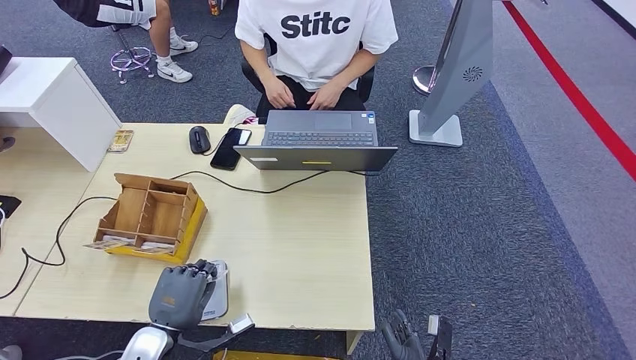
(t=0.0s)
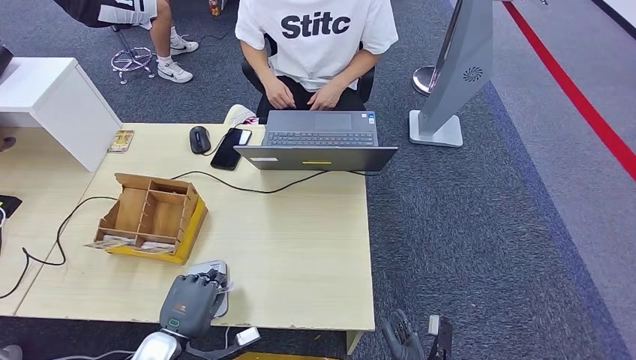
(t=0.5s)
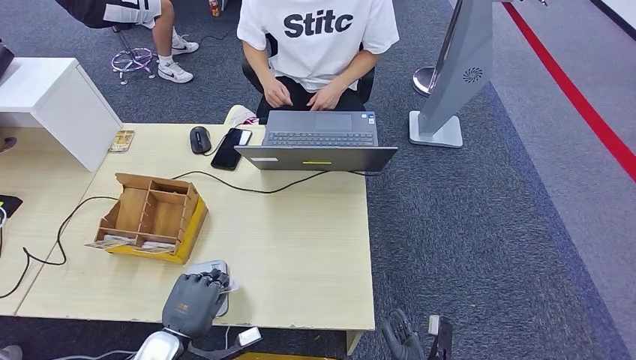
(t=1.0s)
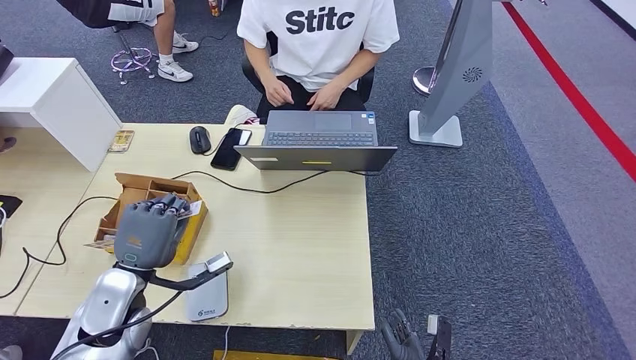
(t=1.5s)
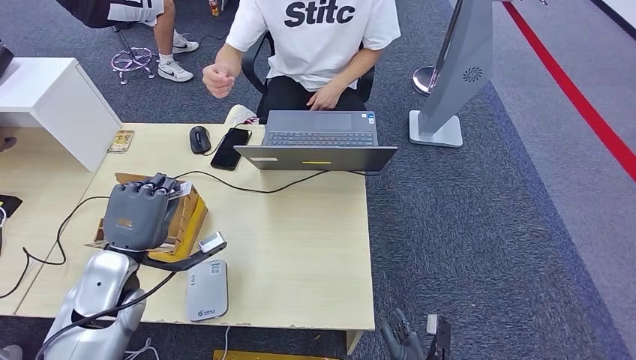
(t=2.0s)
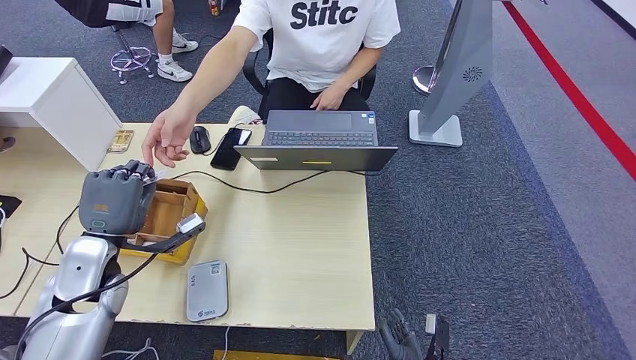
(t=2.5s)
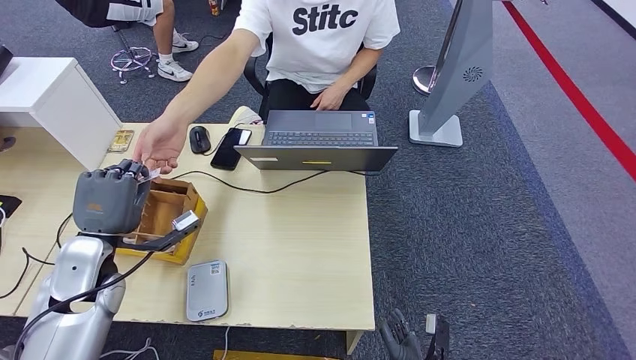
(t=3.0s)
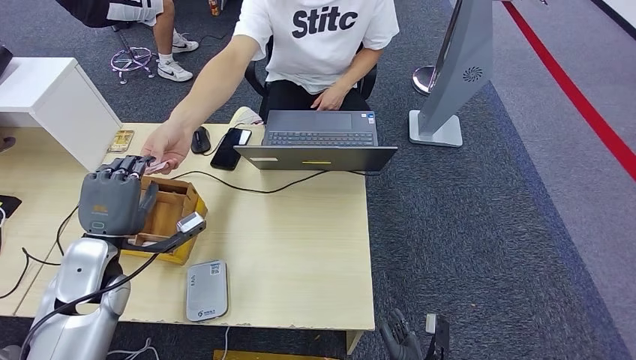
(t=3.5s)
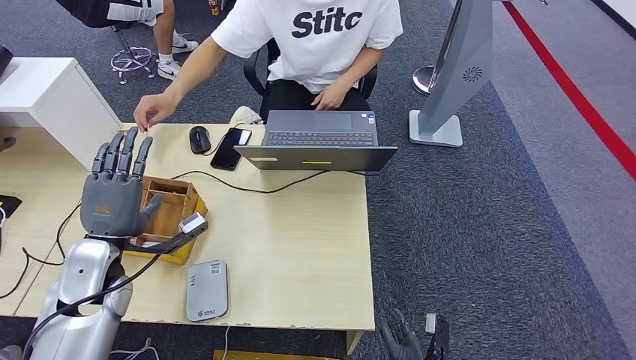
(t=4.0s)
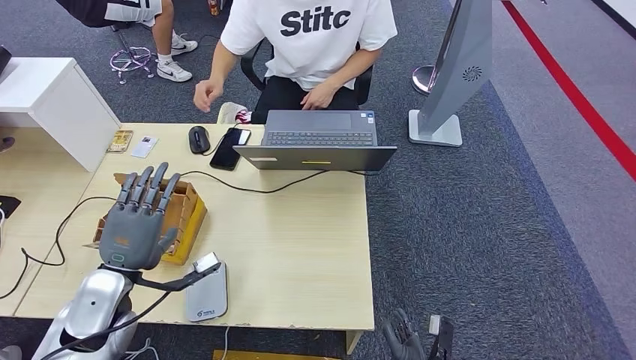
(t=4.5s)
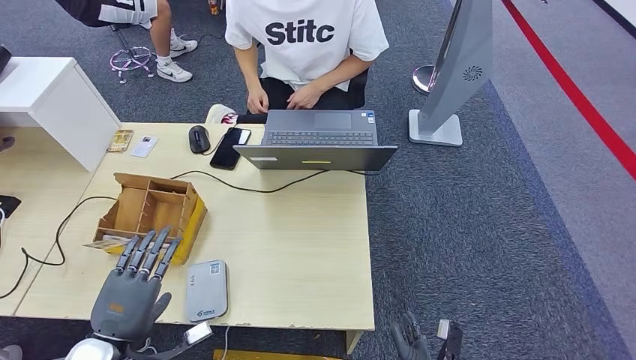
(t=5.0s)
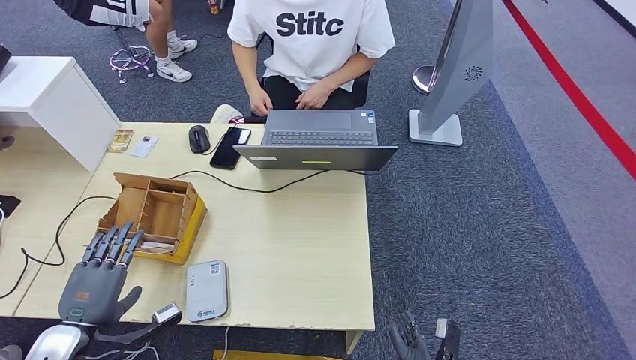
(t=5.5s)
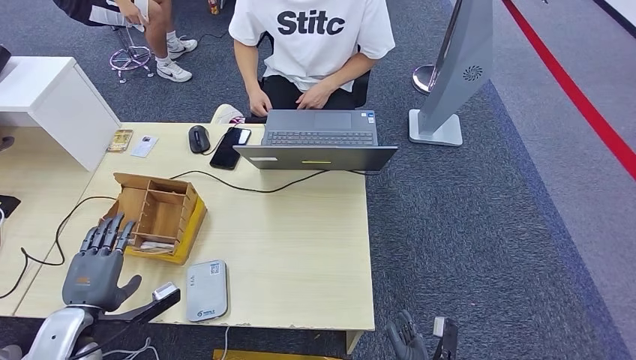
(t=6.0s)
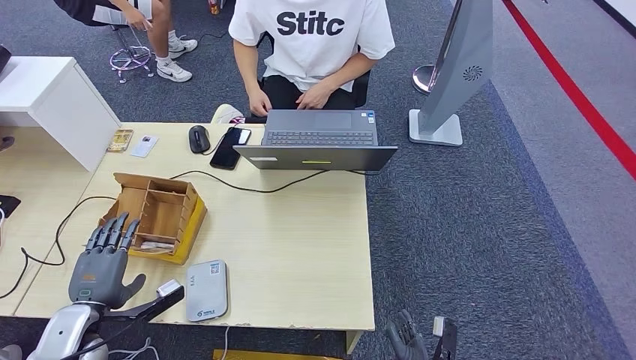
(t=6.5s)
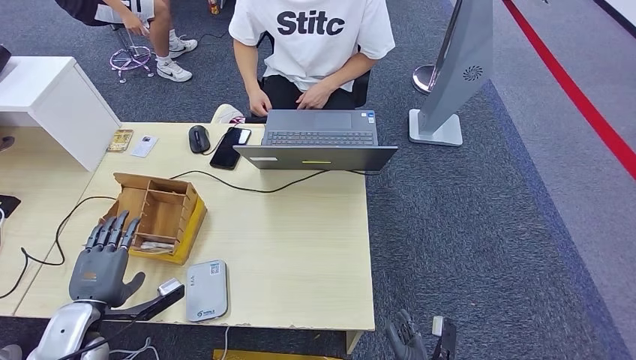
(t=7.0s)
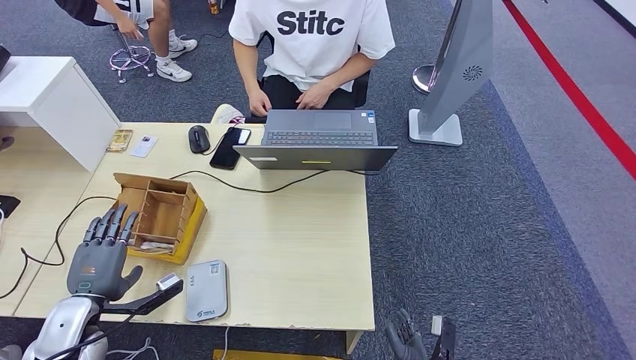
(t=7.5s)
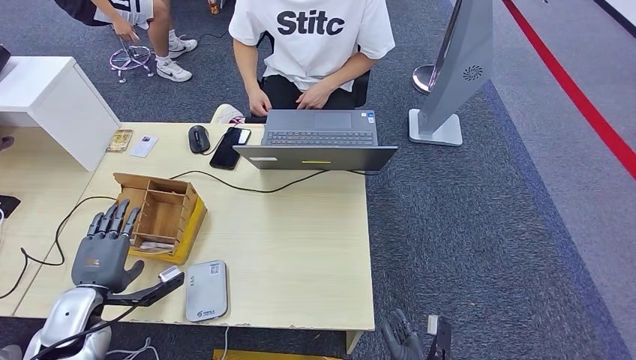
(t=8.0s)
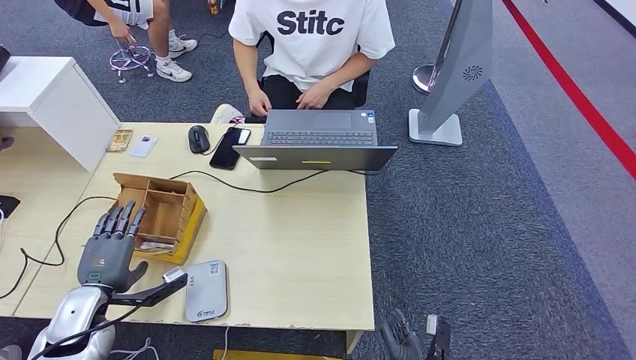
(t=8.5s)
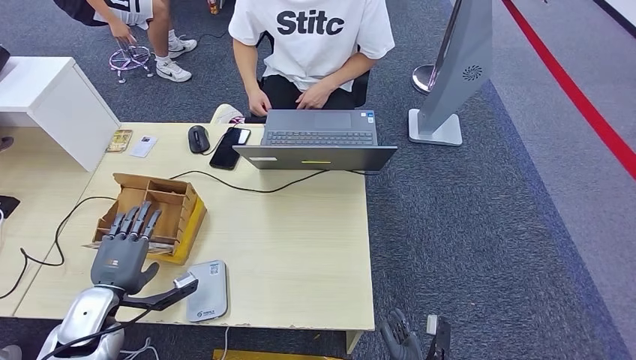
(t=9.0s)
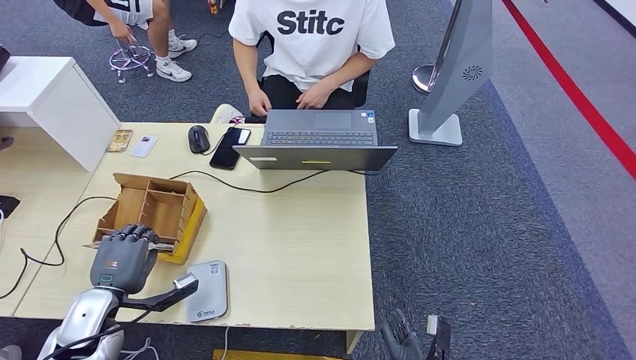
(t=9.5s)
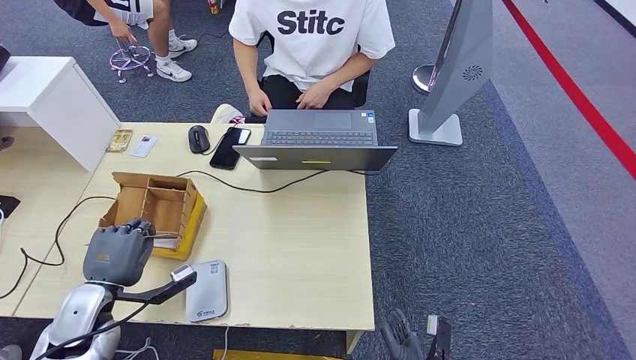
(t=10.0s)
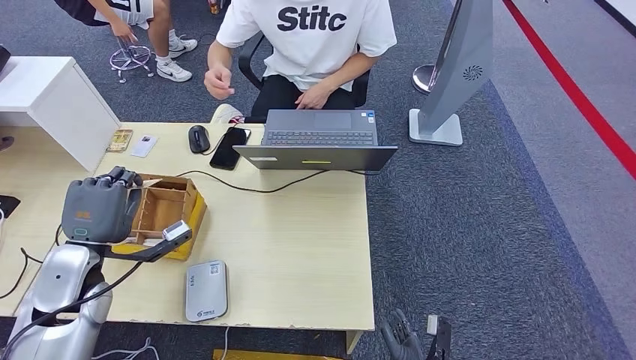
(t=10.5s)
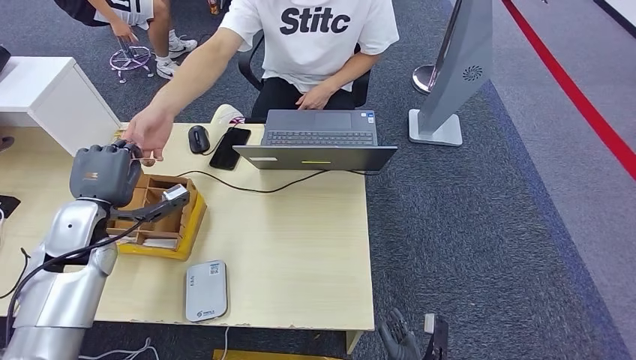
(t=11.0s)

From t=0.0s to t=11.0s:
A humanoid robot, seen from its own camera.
Step, from t=1.5s to t=3.5s: Hand the ID card to the person.
Step, from t=8.0s to t=10.5s: Pick up the room key from the key card box.
From t=0.0s to t=2.0s: The left hand goes about 15 cm upward and forward.
From t=2.0s to t=3.5s: The hands move only a little.
From t=3.5s to t=5.5s: The left hand travels backward and downward by about 15 cm.
From t=5.5s to t=7.5s: There are only small adjustments of the hands.
From t=7.5s to t=9.0s: The hands make only small movements.
From t=9.0s to t=11.0s: The left hand is displaced upward and forward by some 15 cm.

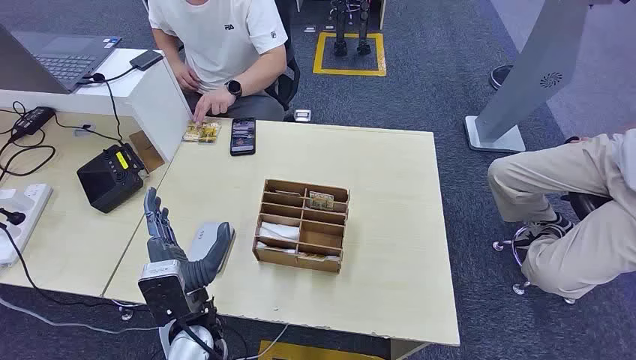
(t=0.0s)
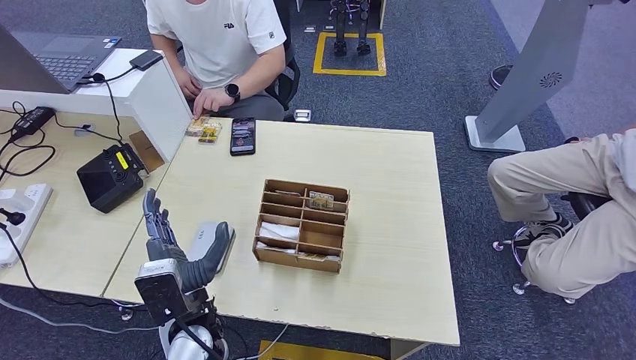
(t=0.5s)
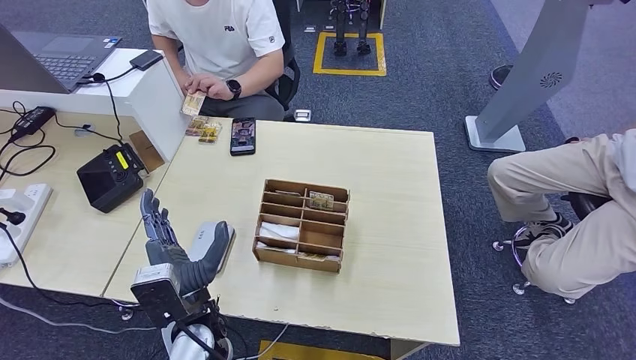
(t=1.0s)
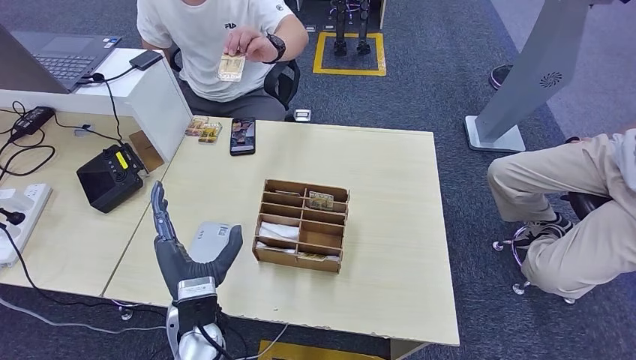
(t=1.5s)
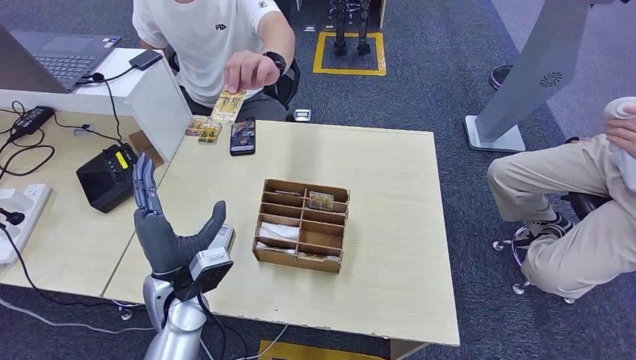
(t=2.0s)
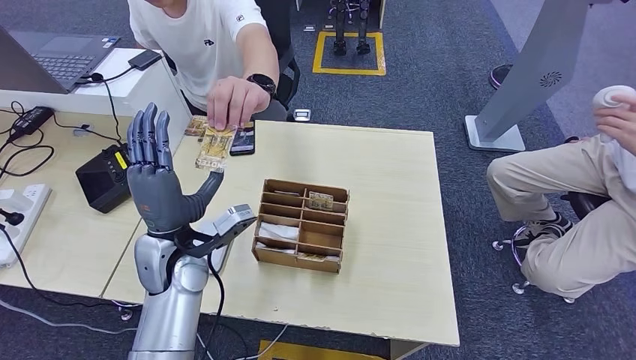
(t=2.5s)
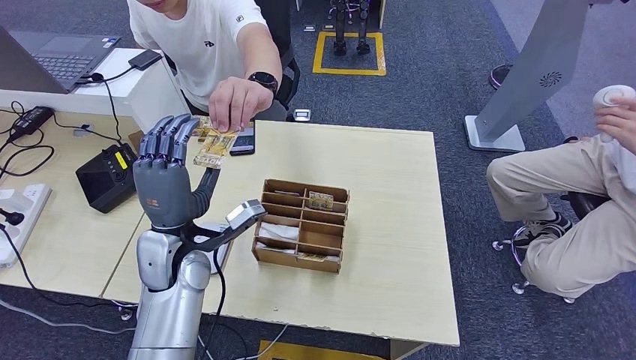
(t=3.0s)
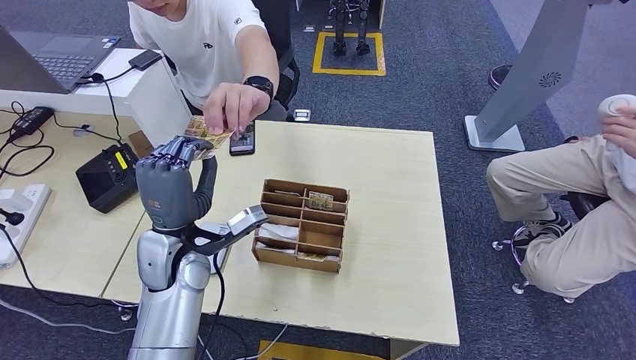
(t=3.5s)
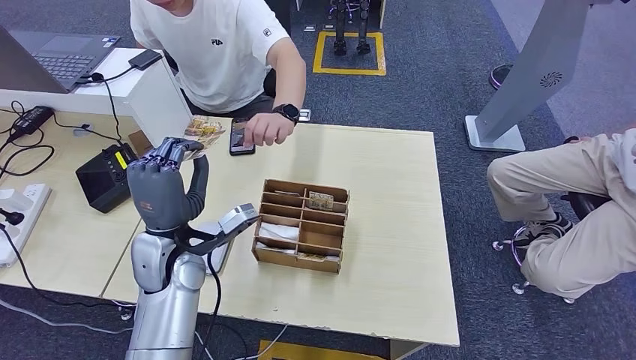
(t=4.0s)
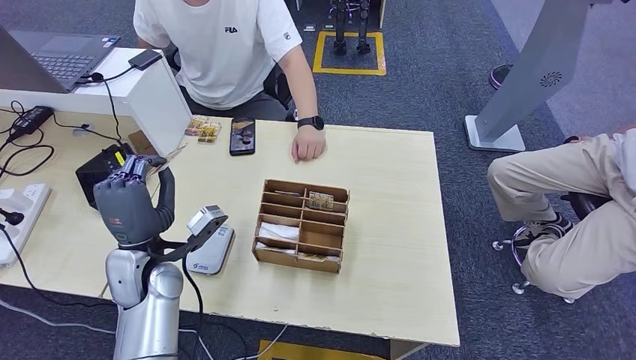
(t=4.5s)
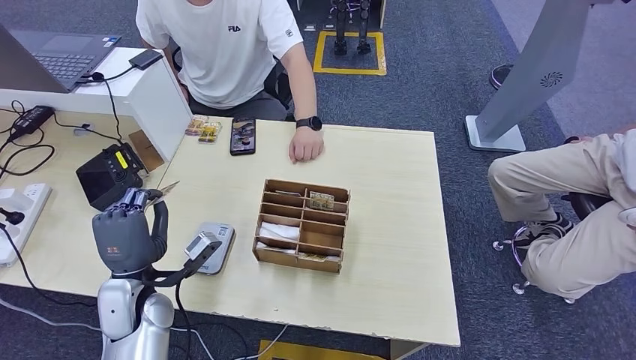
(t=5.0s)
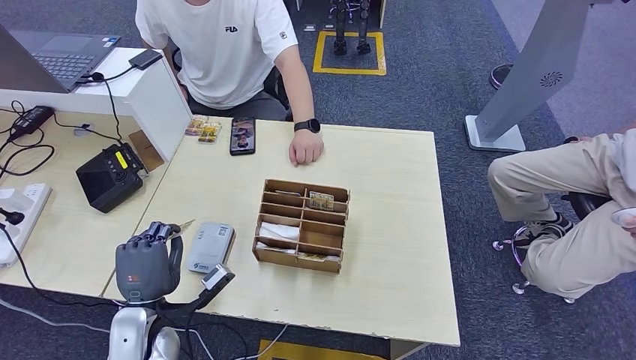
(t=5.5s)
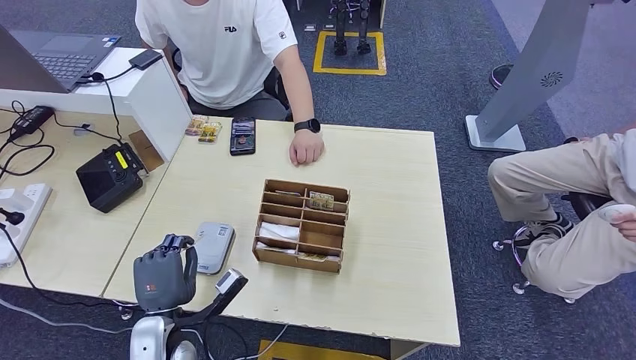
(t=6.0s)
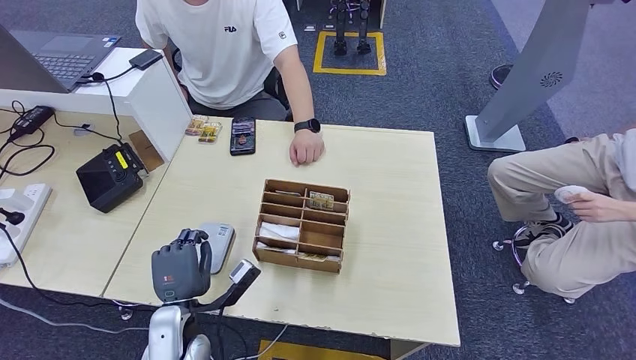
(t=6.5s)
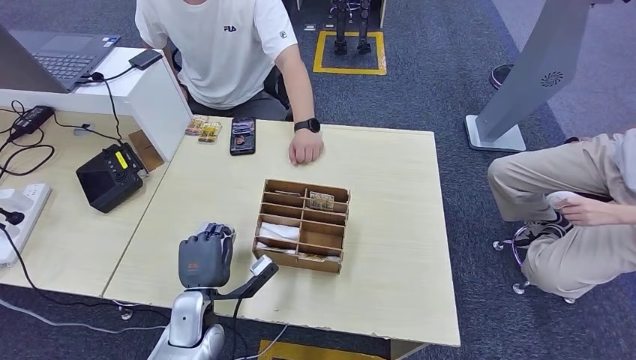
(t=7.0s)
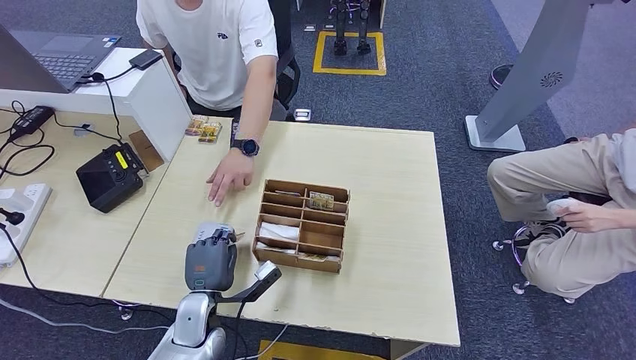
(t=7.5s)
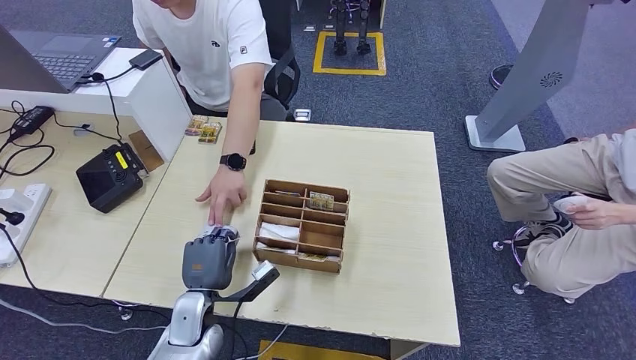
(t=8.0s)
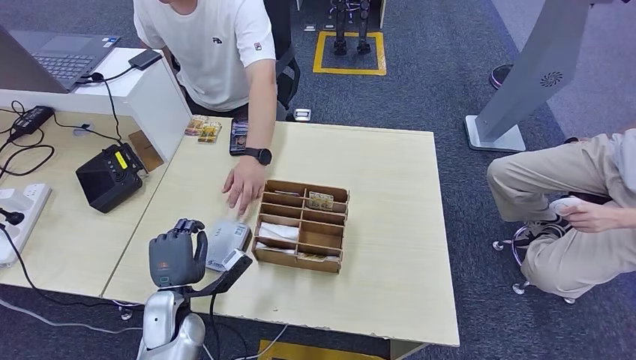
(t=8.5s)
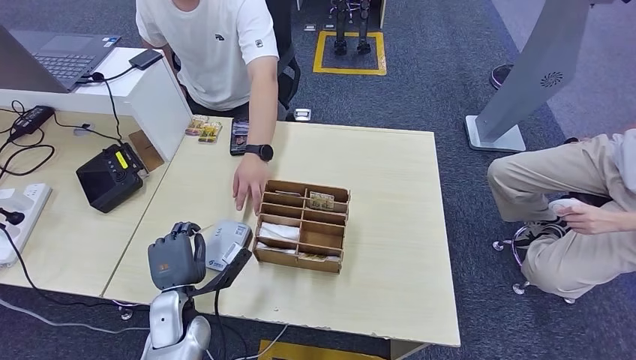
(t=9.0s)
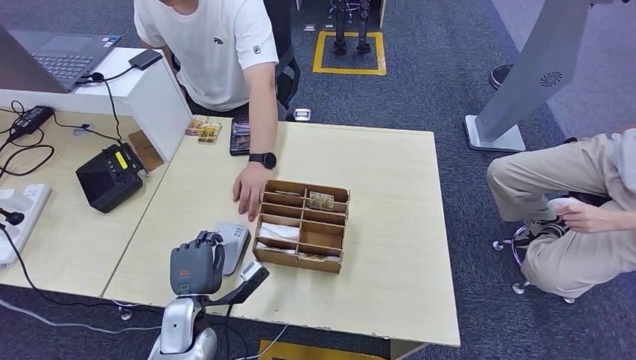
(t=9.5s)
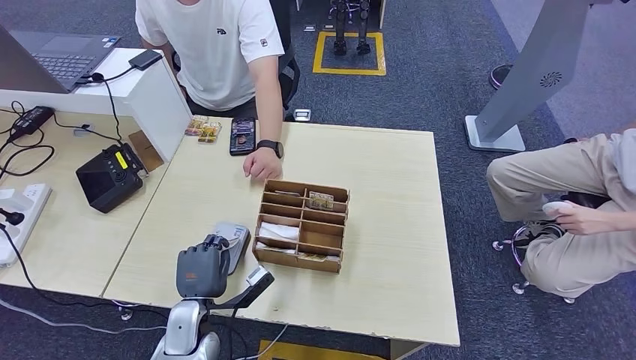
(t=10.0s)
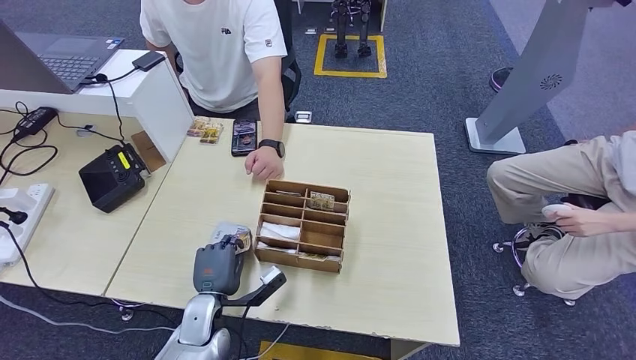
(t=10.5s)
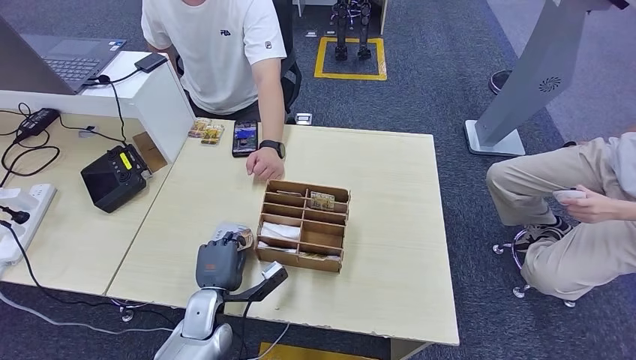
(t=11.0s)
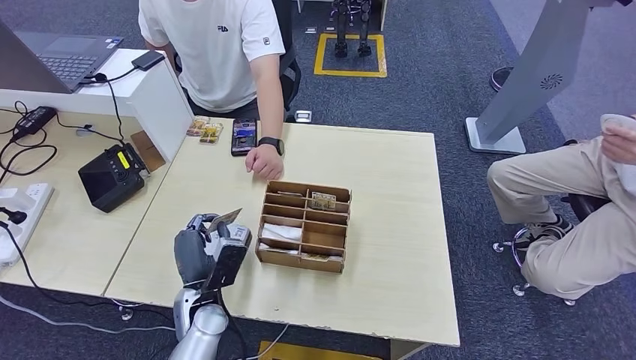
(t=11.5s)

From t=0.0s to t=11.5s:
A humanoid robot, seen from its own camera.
Step, from t=0.0s to t=3.5s: Take the ID card from the person's hand.
Step, from t=4.0s to t=8.0s: Place the ID card on the card reader.
From t=2.0s to t=4.0s: The left hand heads upward, covering roughly 5 cm.
From t=4.0s to t=6.0s: The left hand travels downward and backward by some 15 cm.
From t=6.0s to t=7.5s: The left hand moves some 5 cm.
From t=7.5s to t=9.5s: There are only small adjustments of the hands.
